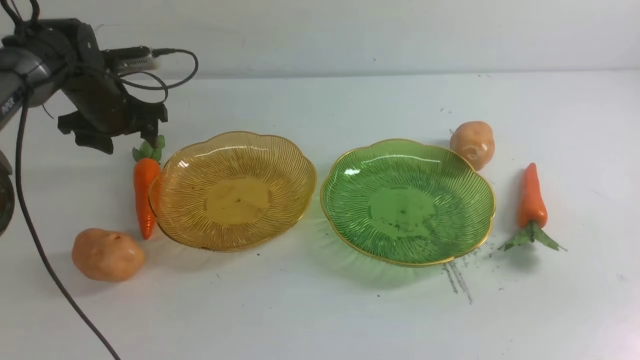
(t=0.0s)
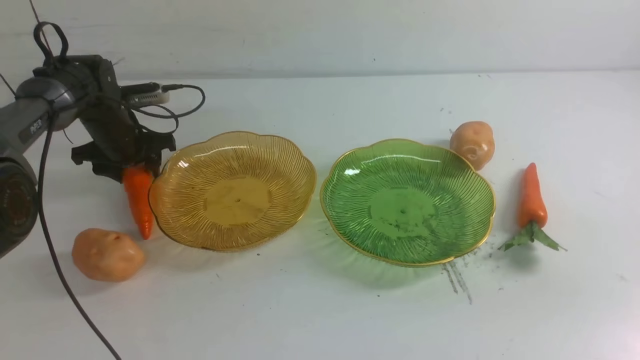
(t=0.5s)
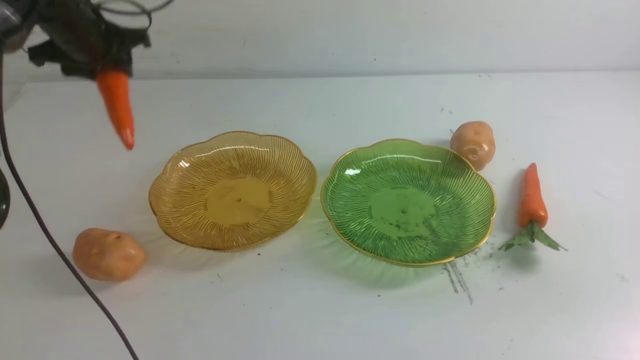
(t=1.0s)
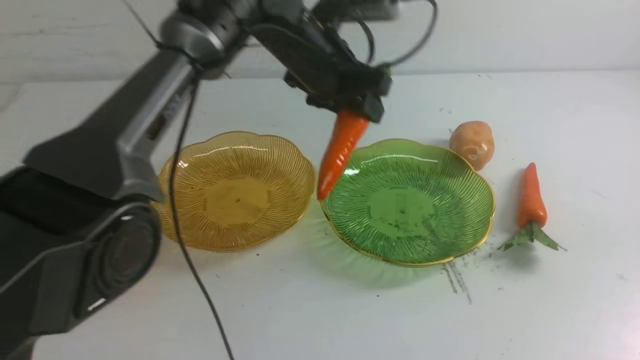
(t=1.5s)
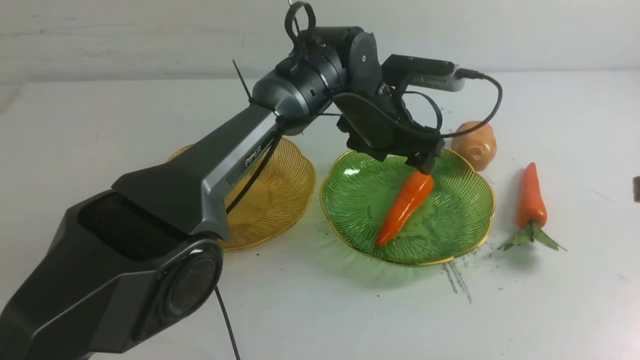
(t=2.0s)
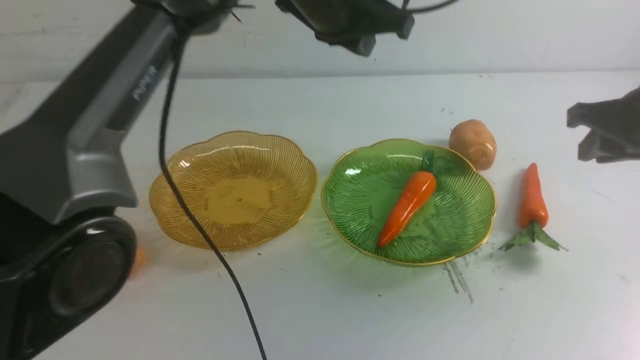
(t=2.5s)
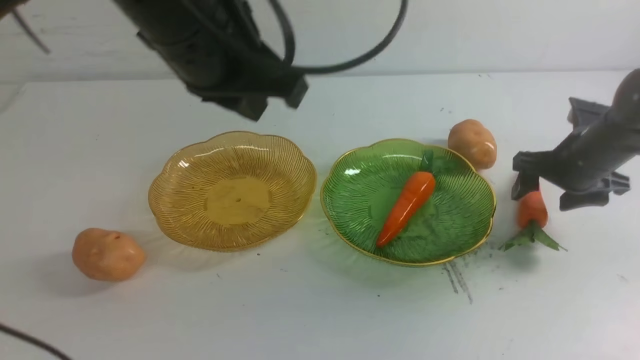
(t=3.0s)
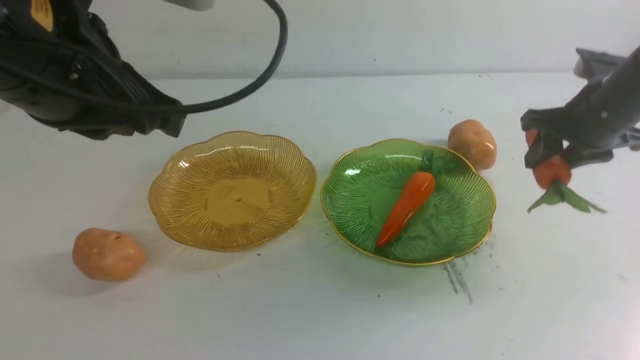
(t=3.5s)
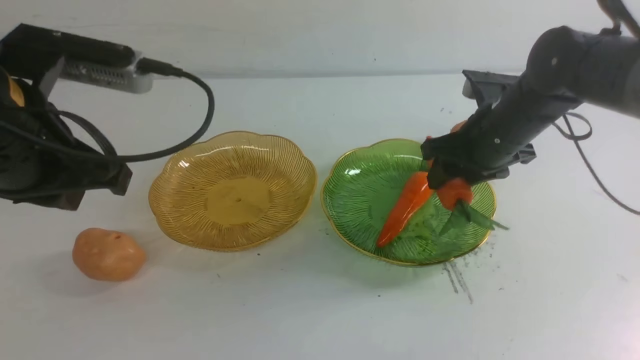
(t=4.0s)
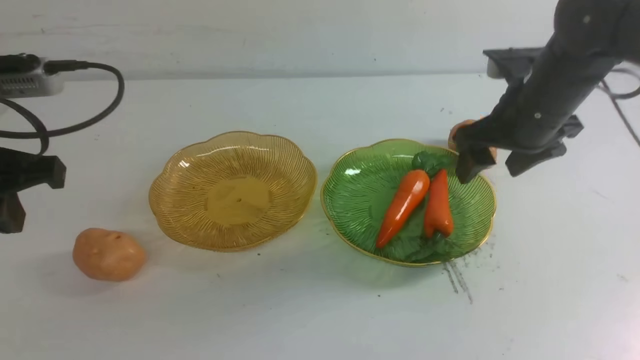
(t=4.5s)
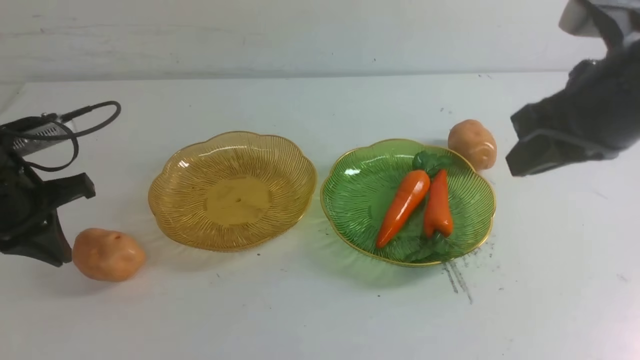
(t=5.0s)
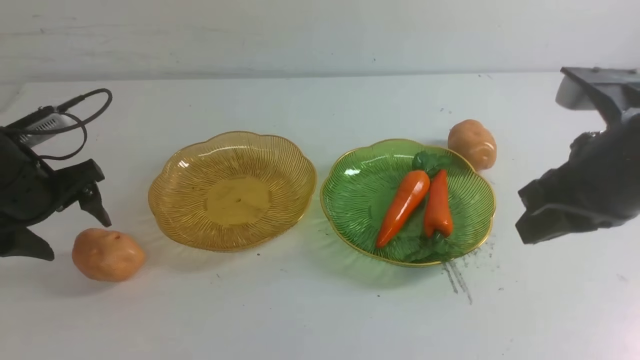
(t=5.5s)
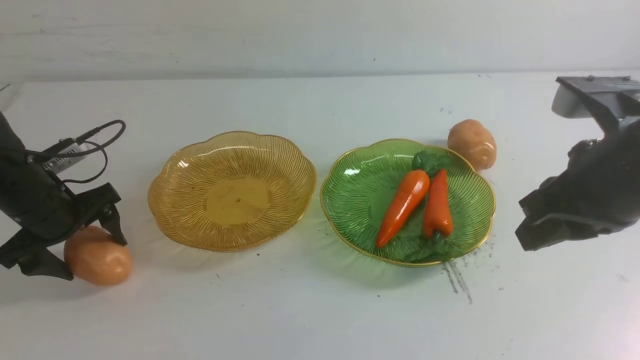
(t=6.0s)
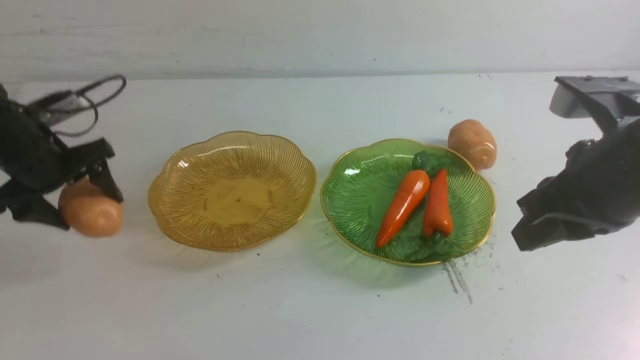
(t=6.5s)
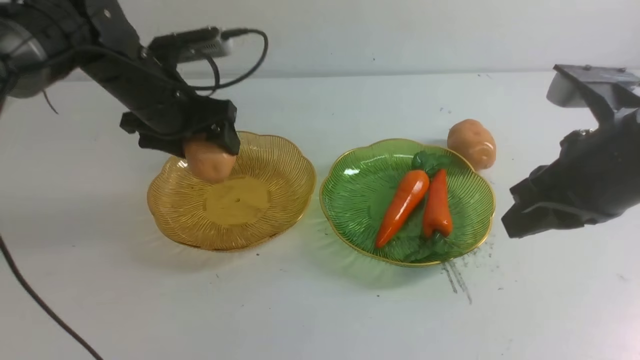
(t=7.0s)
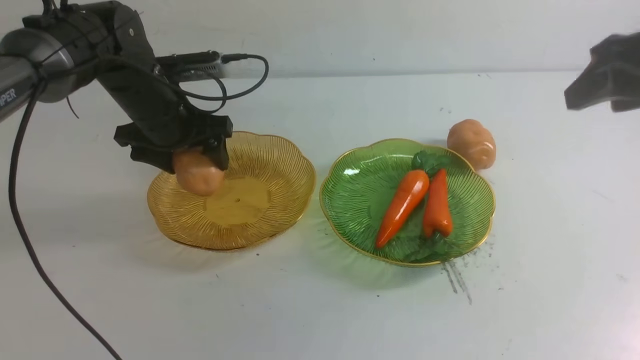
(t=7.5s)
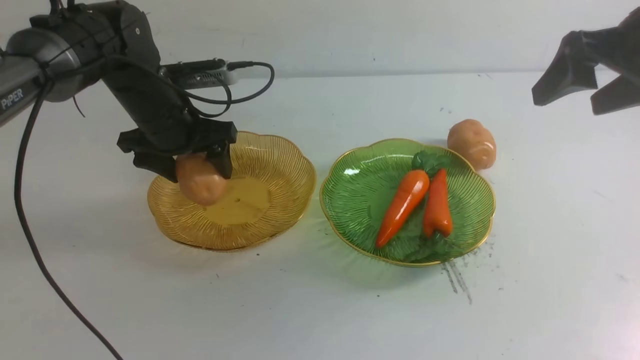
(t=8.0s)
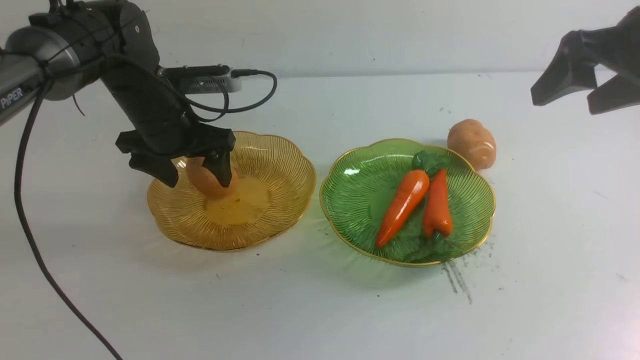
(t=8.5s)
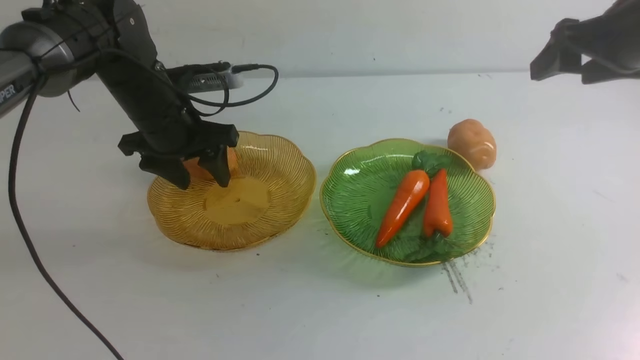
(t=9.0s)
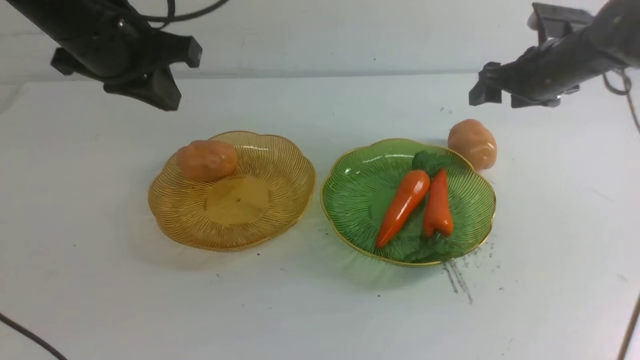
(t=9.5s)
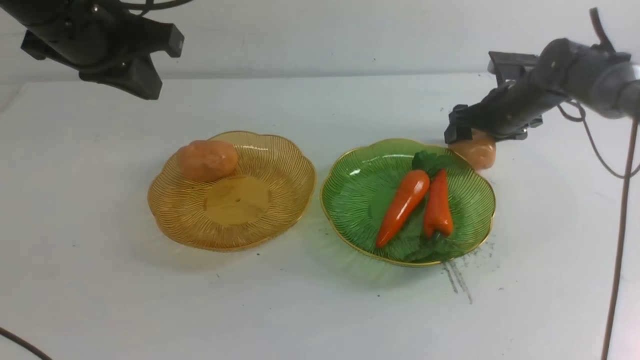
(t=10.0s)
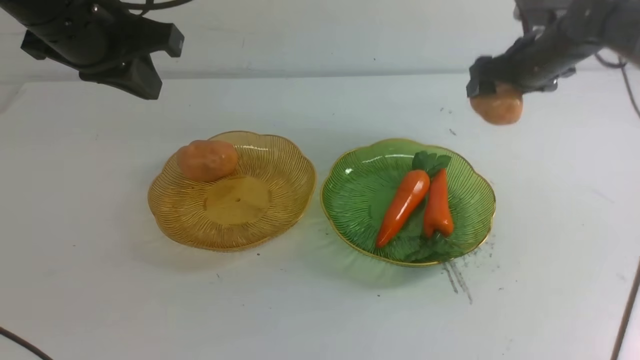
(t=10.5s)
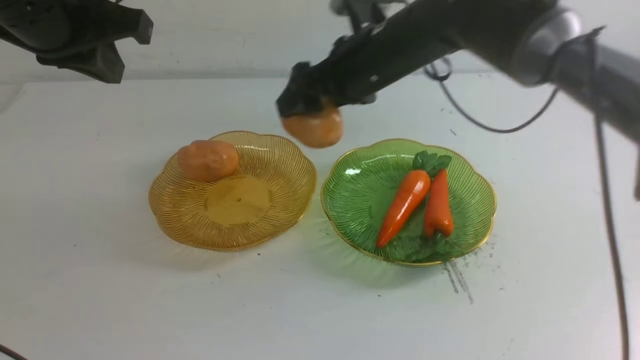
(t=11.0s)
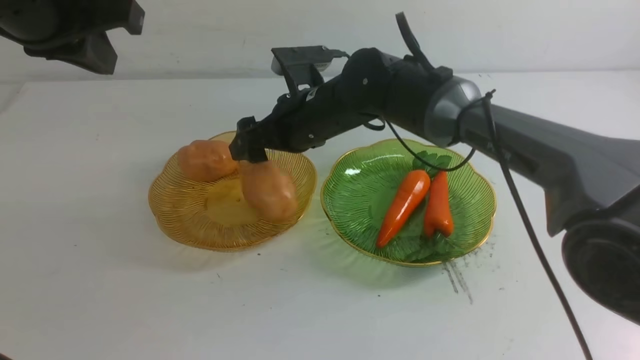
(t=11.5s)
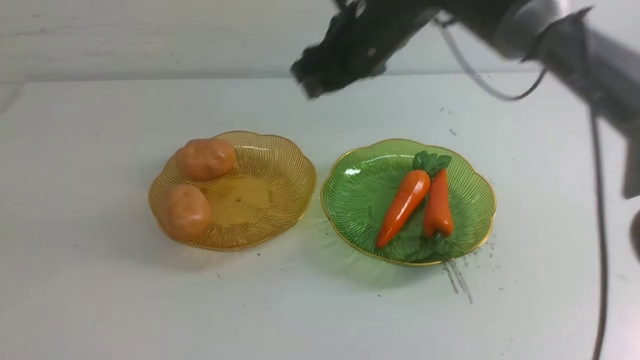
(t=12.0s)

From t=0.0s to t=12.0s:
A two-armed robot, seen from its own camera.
Step, from t=2.0s to t=4.0s: use the right arm to grab a carrot and put it into the right plate.
Step, from t=4.5s to t=8.5s: Grab a potato with your left arm and put it on the left plate.
Step, from t=9.0s to t=11.5s: Grab a potato with your right arm and put it on the left plate.
From t=0.0s to t=2.0s: The left gripper moves to the right, roughly 35 cm; the right gripper travels forward by approximately 10 cm.
From t=2.0s to t=4.0s: The left gripper heads to the left, backward and upward, covering roughly 35 cm, and closes its fingers. The right gripper is displaced forward, to the left and downward by about 25 cm, and opens.
From t=4.0s to t=6.0s: The right gripper moves backward and upward, about 20 cm, and closes. Meanwhile the left gripper travels downward, to the left and forward by roughly 25 cm, and opens its fingers.
From t=6.0s to t=8.0s: The right gripper is displaced forward and to the right by approximately 10 cm, and opens; the left gripper travels to the right, forward and upward by some 15 cm.
From t=8.0s to t=10.0s: The left gripper moves upward and backward, approximately 20 cm, and closes up. Meanwhile the right gripper goes some 25 cm downward and forward.
From t=10.0s to t=12.0s: The right gripper goes approximately 30 cm to the left, upward and backward. Meanwhile the left gripper goes about 15 cm backward and upward.

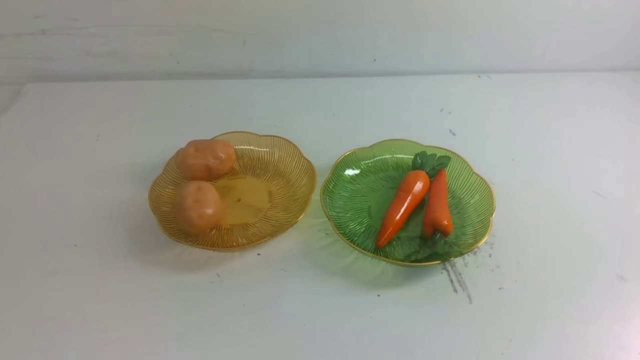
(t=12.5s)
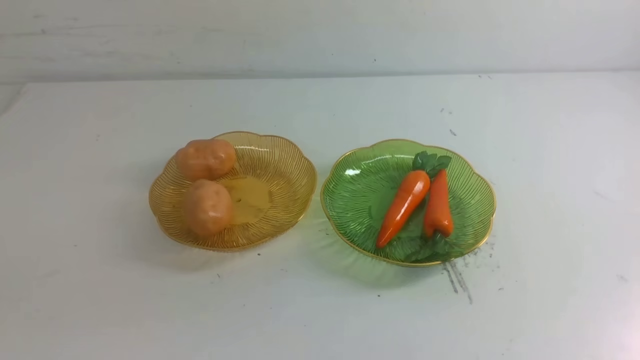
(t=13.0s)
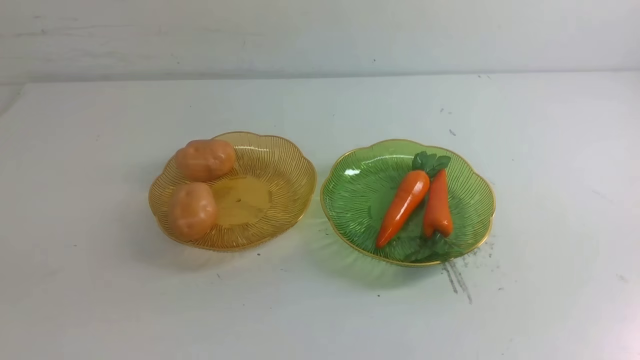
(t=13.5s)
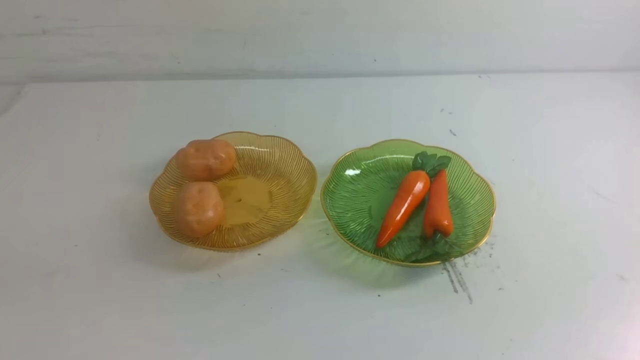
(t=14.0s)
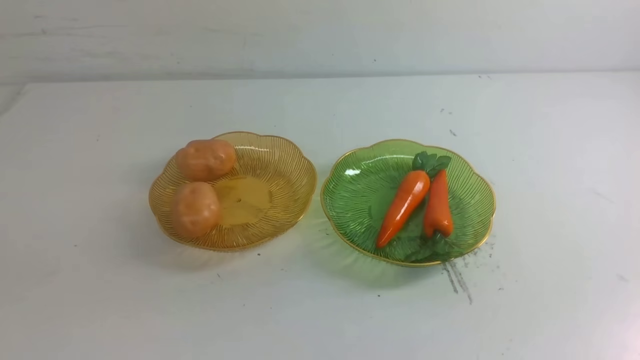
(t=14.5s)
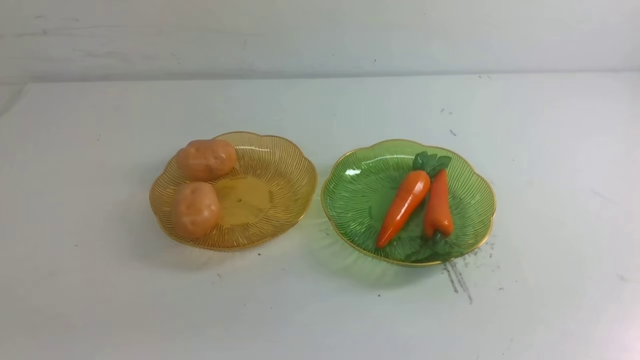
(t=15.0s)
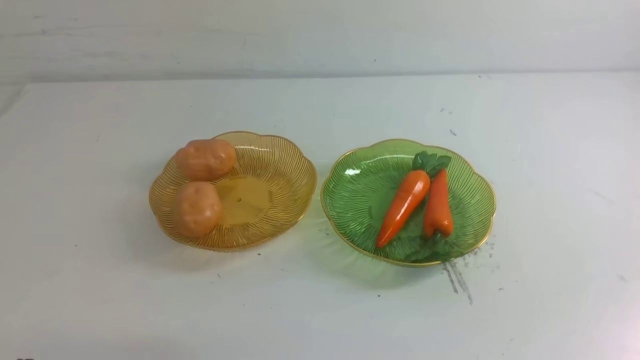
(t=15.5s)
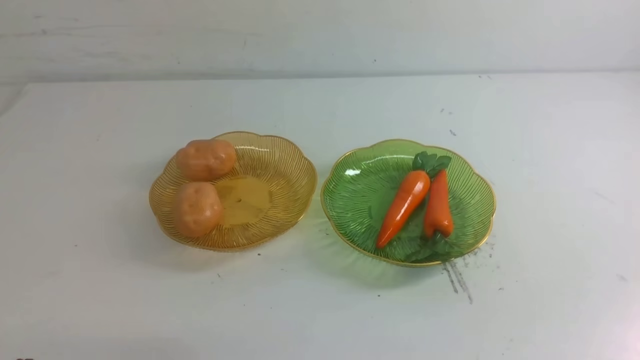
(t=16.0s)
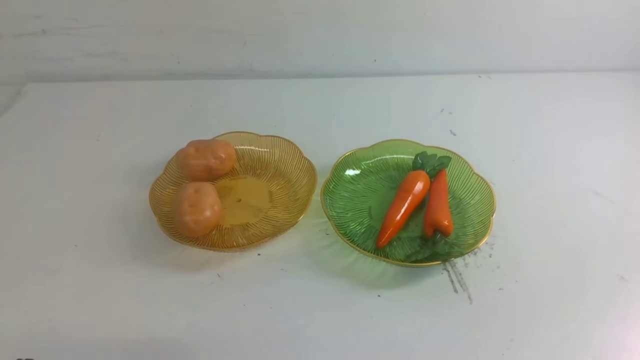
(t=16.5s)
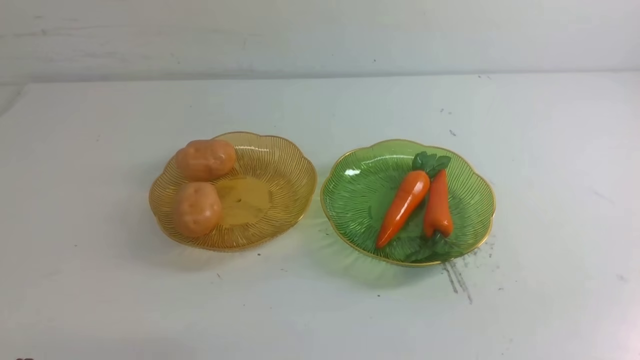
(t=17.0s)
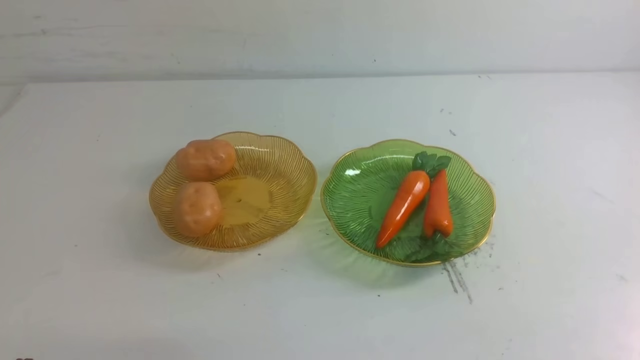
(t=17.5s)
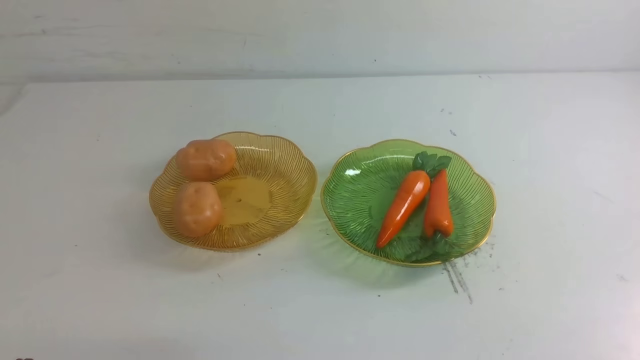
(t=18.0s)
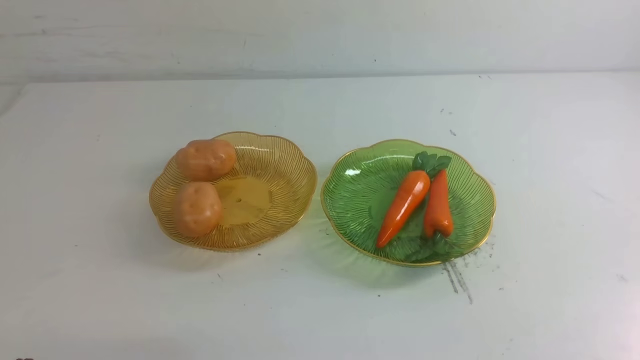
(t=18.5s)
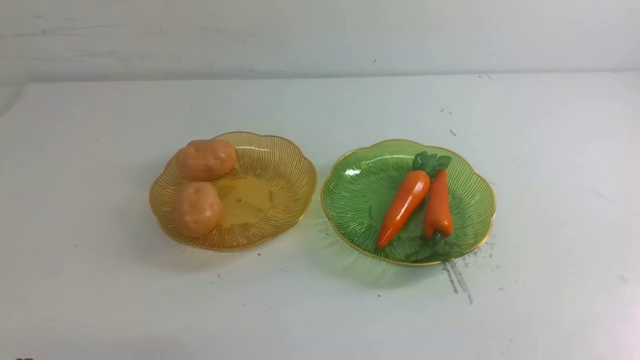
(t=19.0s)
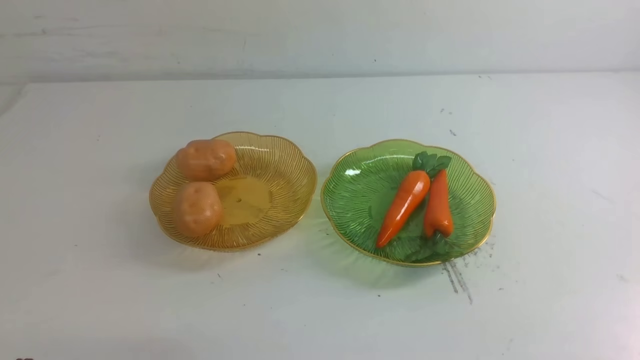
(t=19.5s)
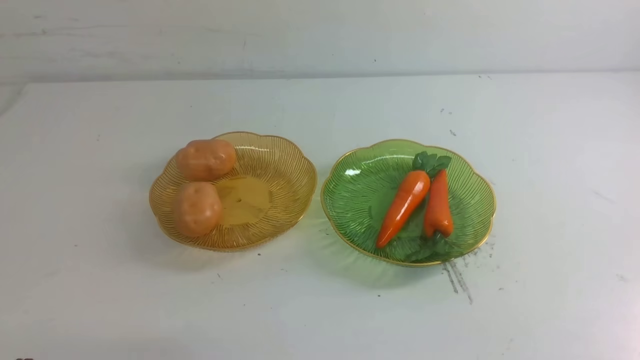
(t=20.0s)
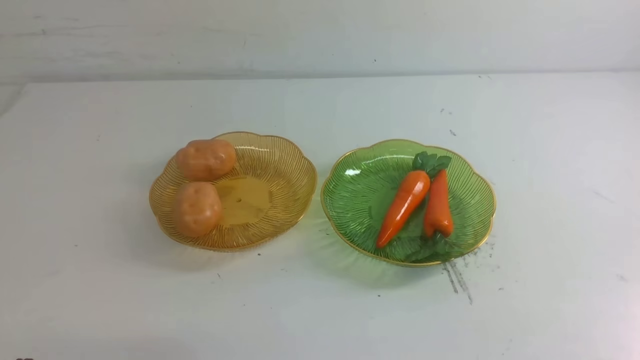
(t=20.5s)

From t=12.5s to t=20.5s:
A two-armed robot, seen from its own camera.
From t=18.5s to t=20.5s: Both grippers stay about where they are.
